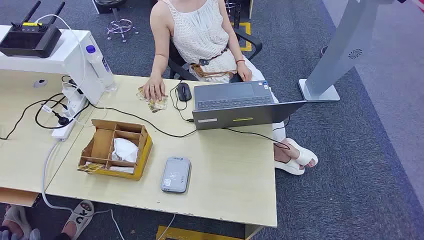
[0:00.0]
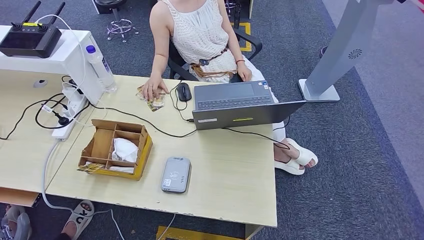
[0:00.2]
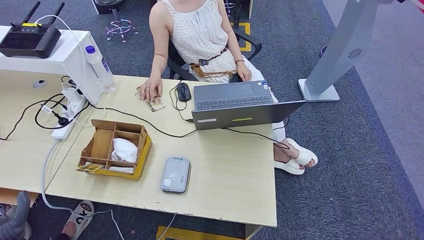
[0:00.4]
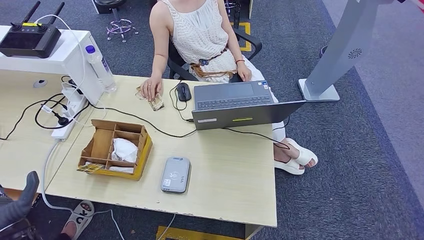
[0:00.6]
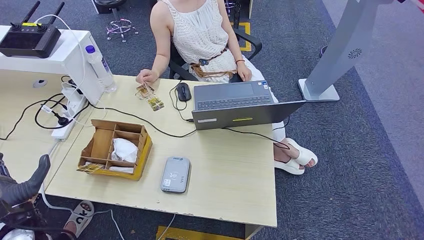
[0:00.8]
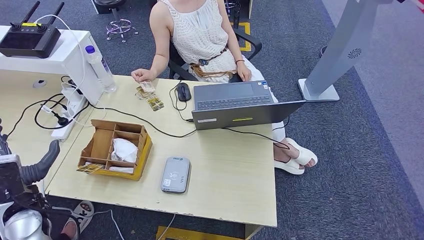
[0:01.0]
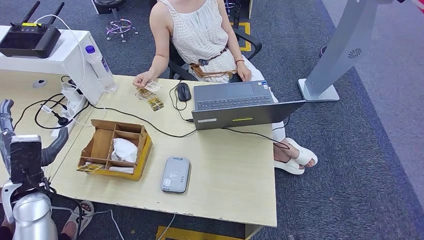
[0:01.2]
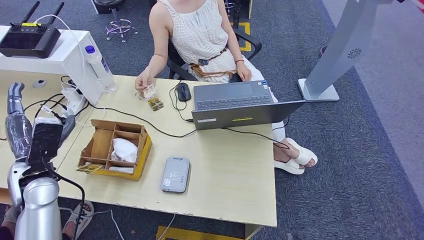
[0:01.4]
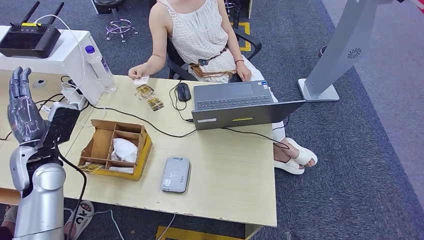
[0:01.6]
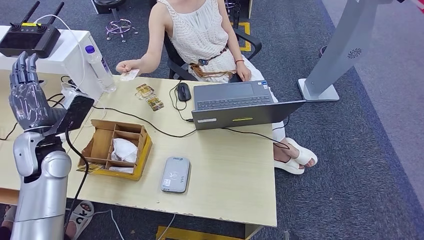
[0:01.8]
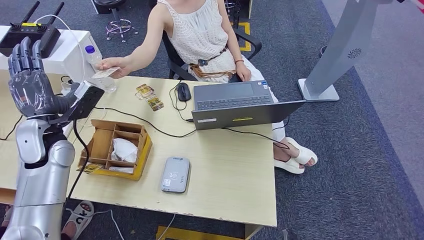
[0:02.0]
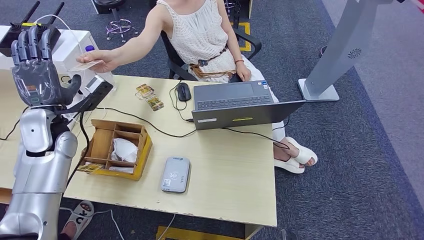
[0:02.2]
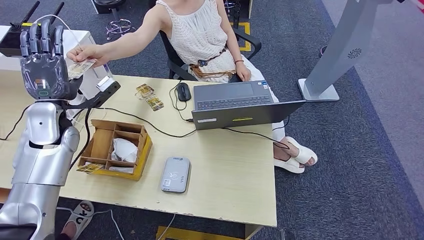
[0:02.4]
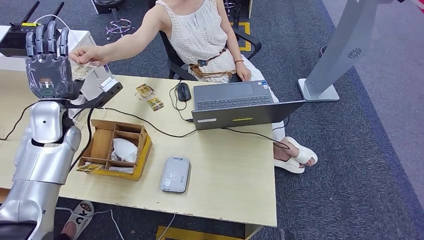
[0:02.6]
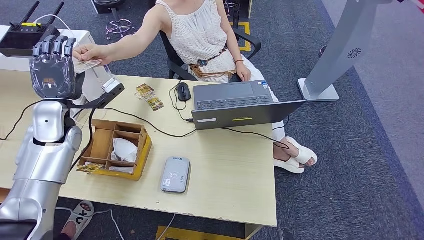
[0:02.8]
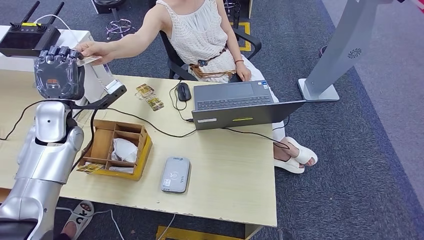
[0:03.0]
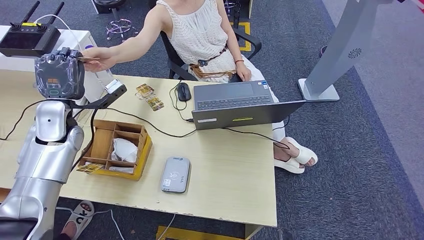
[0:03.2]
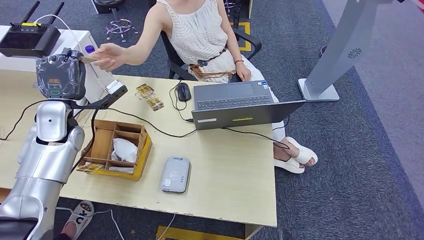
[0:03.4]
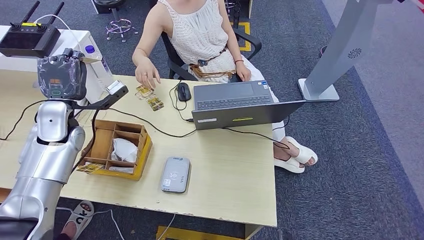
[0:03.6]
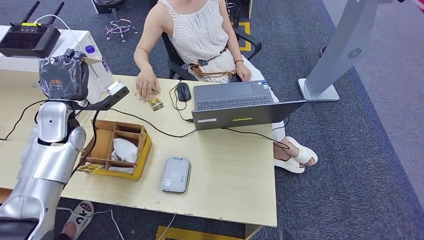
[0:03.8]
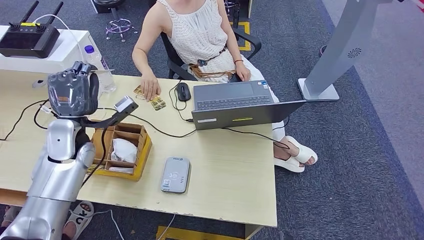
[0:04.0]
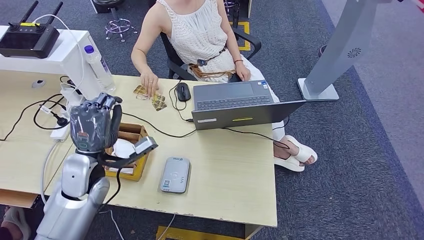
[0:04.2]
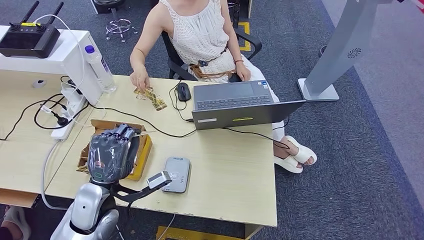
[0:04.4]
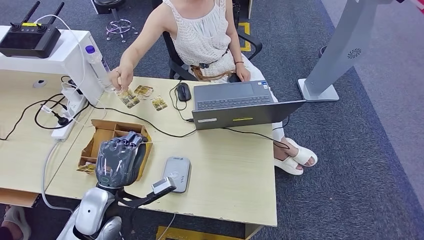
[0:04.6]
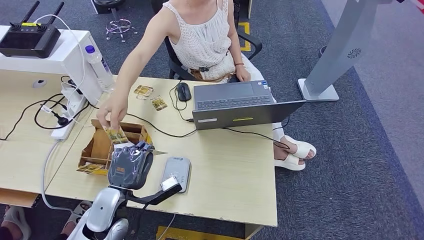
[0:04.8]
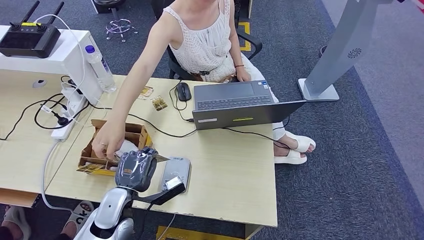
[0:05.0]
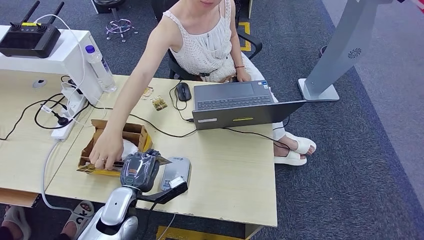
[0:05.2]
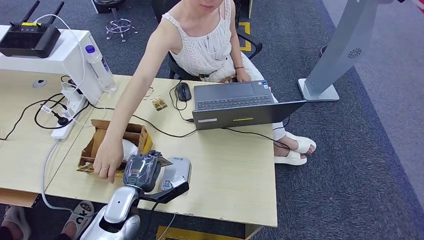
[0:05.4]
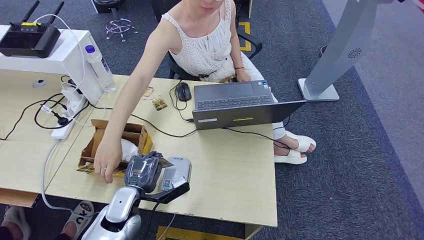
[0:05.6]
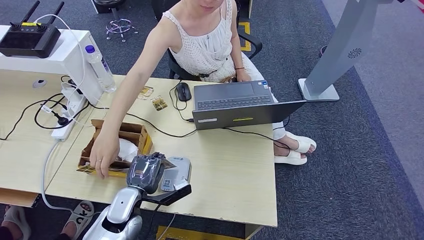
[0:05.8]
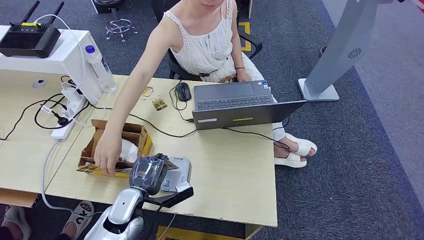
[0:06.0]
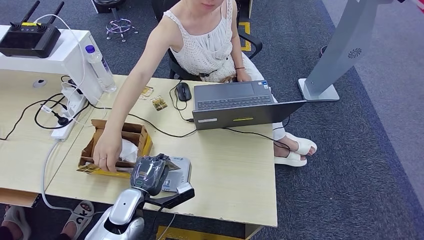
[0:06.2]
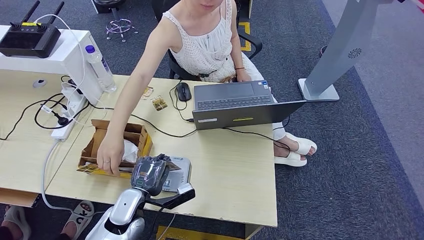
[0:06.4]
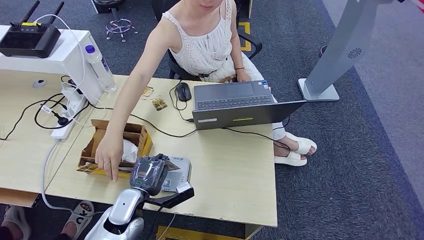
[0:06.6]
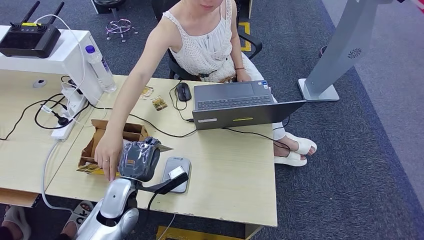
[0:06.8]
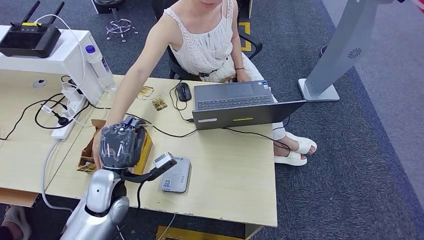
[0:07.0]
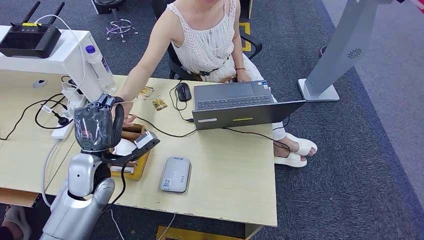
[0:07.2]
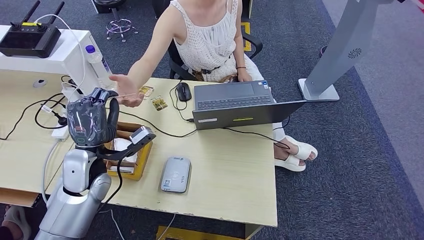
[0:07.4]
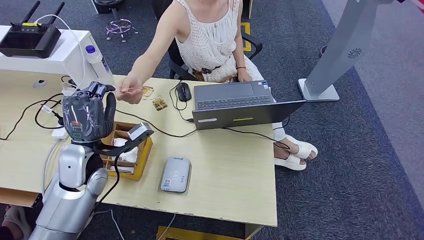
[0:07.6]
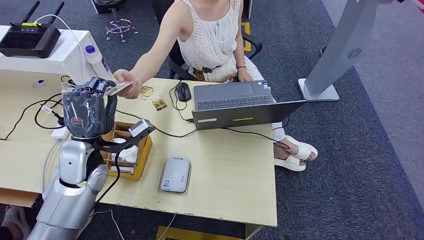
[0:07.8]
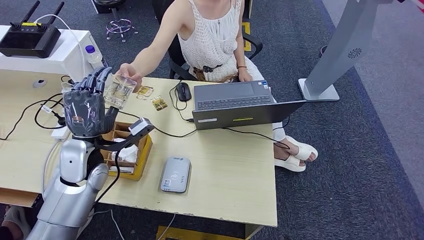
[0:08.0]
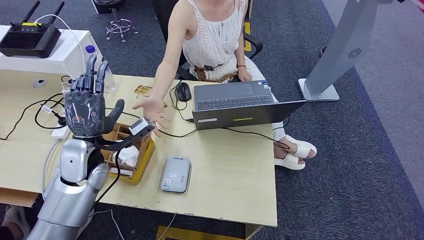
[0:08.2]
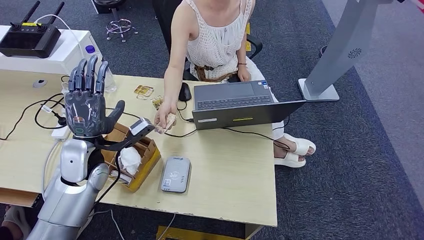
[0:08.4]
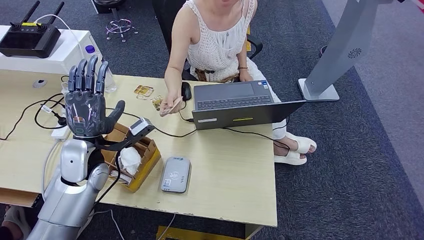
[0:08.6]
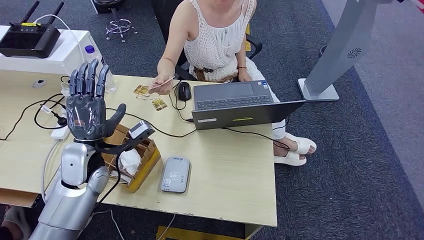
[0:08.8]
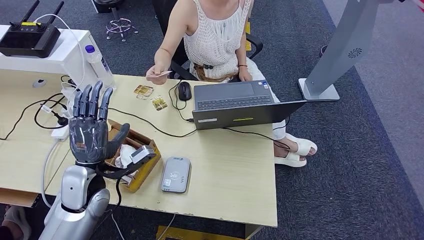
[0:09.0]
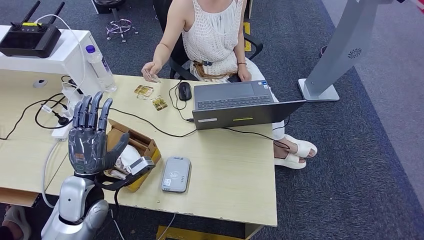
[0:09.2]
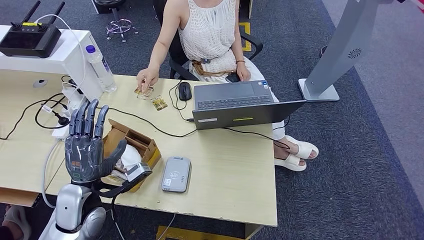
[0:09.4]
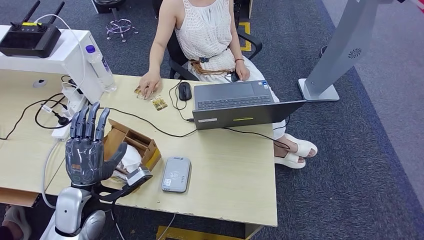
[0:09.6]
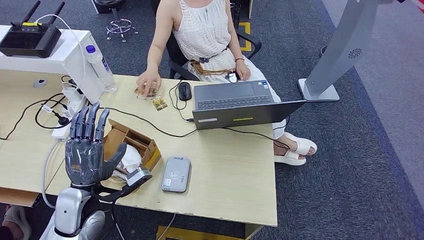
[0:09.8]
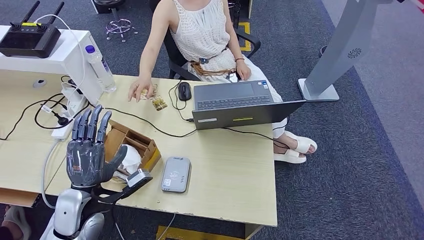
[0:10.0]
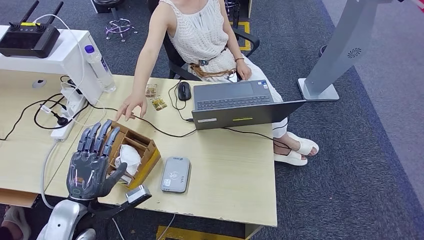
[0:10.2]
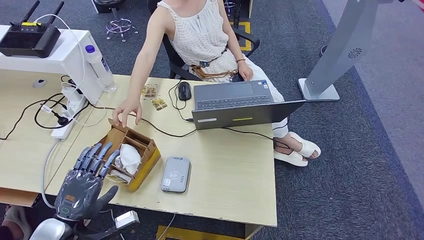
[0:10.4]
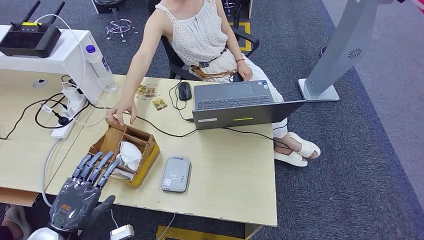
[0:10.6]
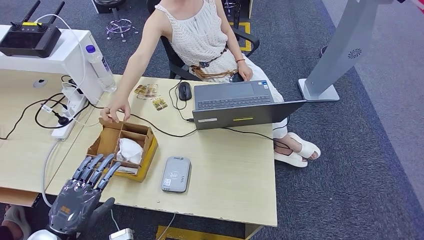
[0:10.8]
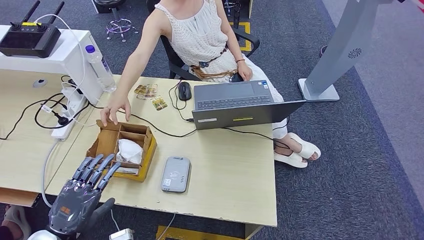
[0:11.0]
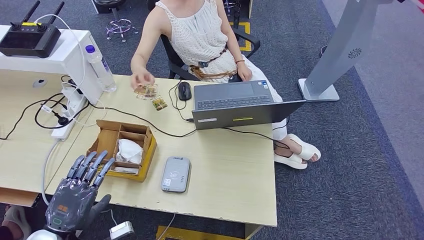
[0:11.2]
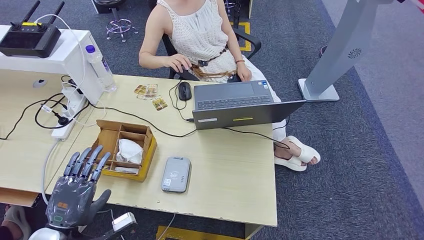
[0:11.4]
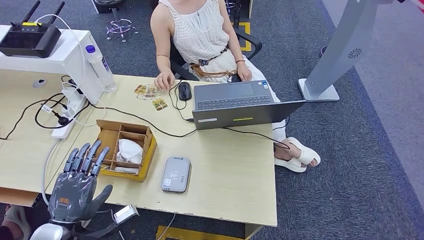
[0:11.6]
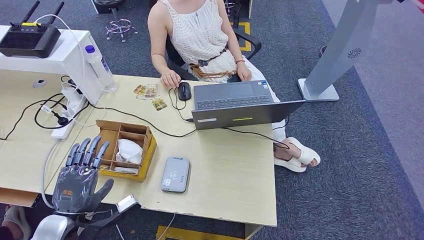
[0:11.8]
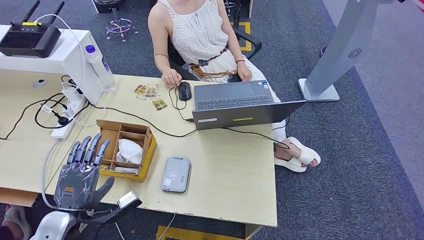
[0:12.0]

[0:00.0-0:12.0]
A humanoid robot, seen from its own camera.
Step, 0:00.0 to 0:04.4: Take the ID card from the person's hand.
Step, 0:04.8 to 0:06.4: Place the ID card on the card reader.
Step, 0:06.8 to 0:09.4: Hand the ID card to the person.
0:01.6 to 0:03.0: The left hand goes about 10 cm forward.
0:03.0 to 0:04.4: The left hand goes some 20 cm backward, to the right and downward.
0:04.4 to 0:06.0: The left hand is displaced downward by some 10 cm.
0:06.0 to 0:07.6: The left hand shifts some 20 cm upward, forward and to the left.
0:07.6 to 0:09.0: The left hand ends up approximately 5 cm from where it was.
0:09.0 to 0:10.4: The left hand is displaced backward and to the left by some 15 cm.
0:10.4 to 0:12.0: The hands move only a little.

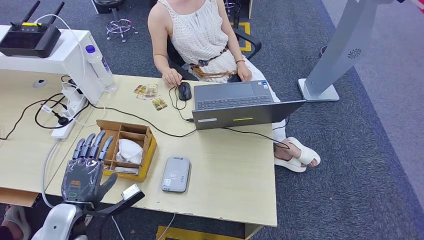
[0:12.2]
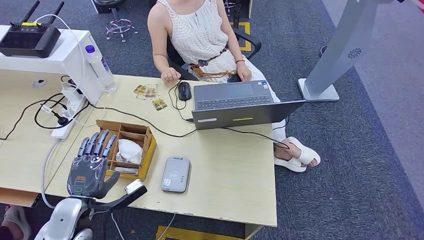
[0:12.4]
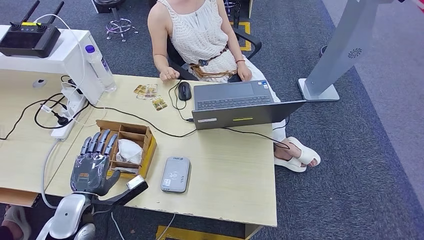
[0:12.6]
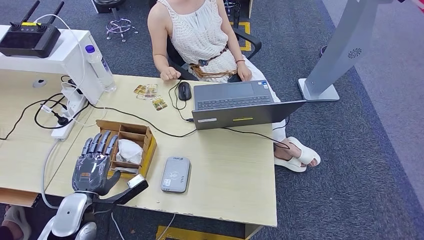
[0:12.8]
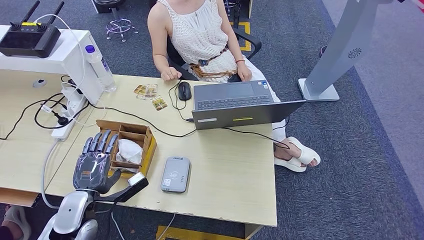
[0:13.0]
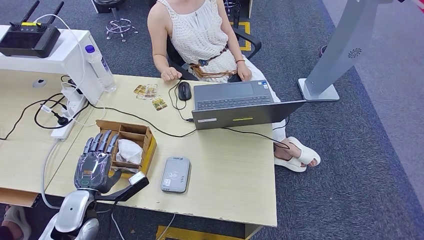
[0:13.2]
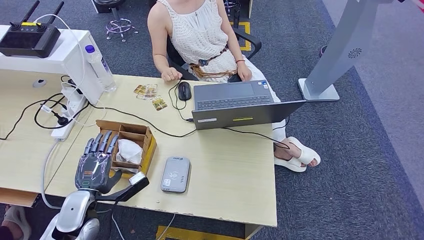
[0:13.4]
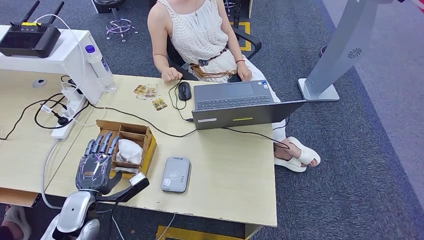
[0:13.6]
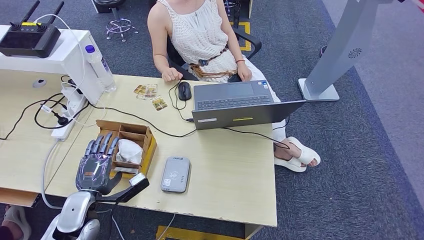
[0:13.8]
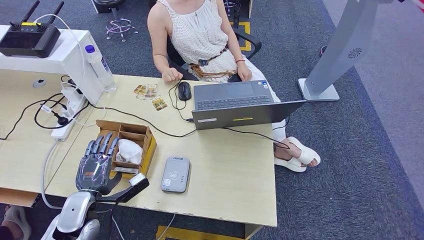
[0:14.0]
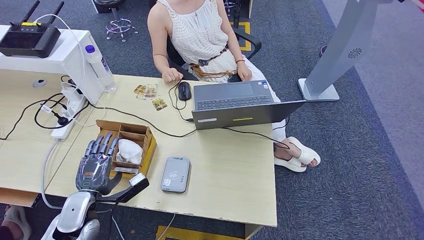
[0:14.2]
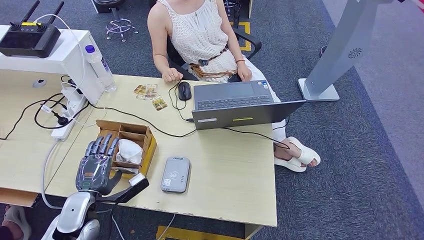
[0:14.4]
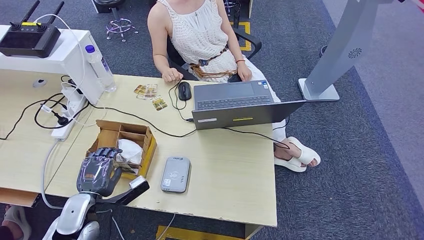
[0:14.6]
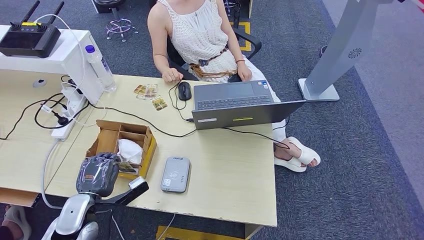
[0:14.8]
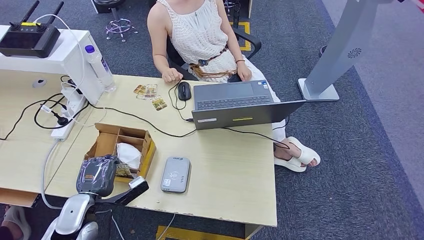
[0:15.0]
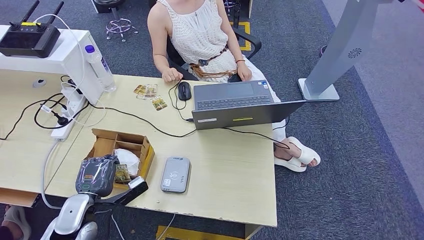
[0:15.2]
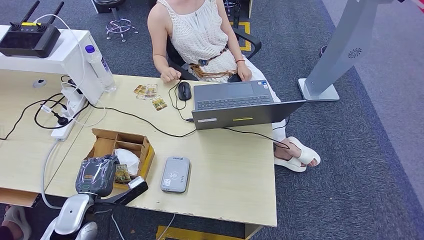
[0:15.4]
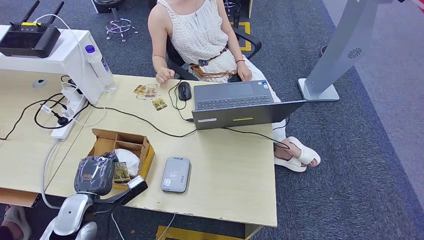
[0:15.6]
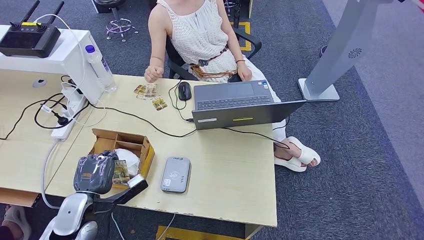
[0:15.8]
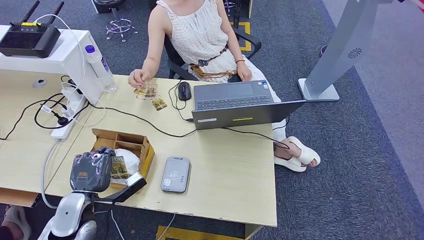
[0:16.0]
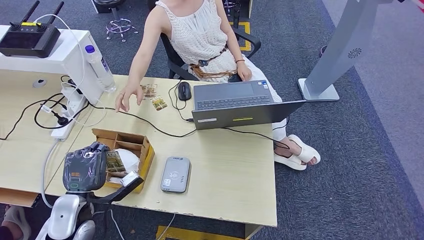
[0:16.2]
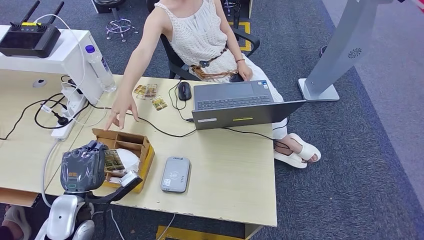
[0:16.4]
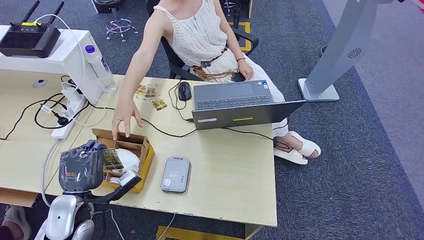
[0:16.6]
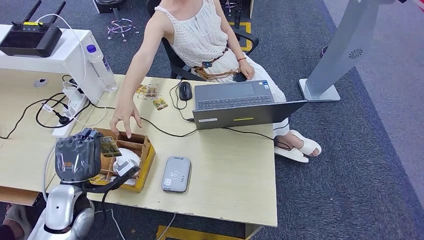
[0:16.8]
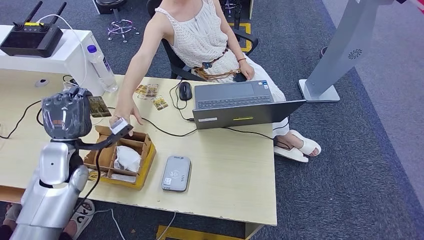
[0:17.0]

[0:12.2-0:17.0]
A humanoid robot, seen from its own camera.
Step, 0:12.2 to 0:15.4: Pick up the room key from the key card box.
0:12.2 to 0:13.8: The hands stay close to where they were, moving slightly.
0:13.8 to 0:15.4: Both hands stay put.
